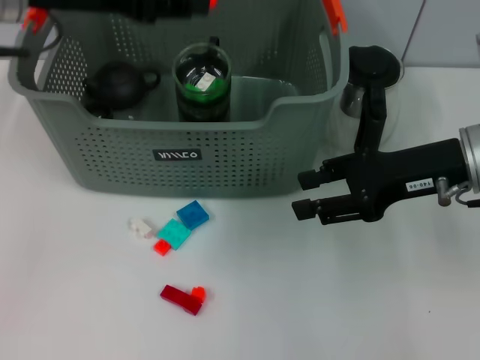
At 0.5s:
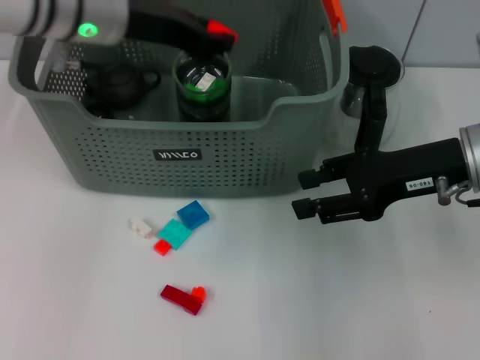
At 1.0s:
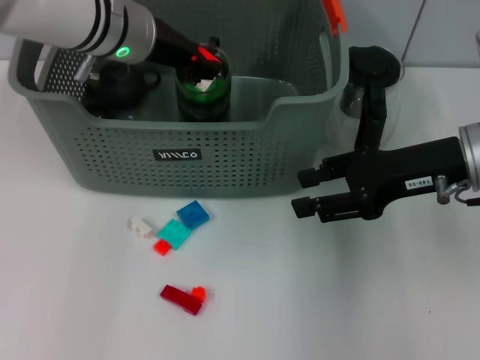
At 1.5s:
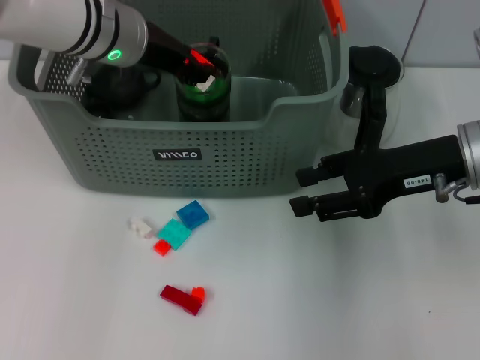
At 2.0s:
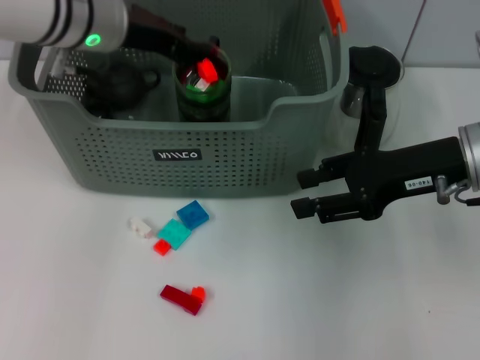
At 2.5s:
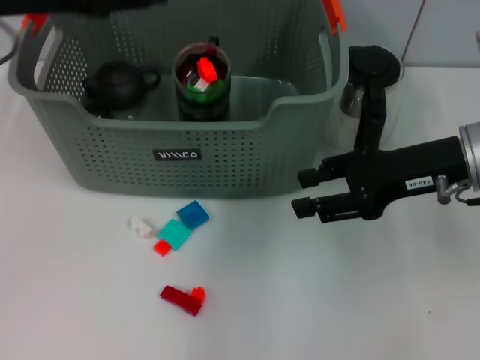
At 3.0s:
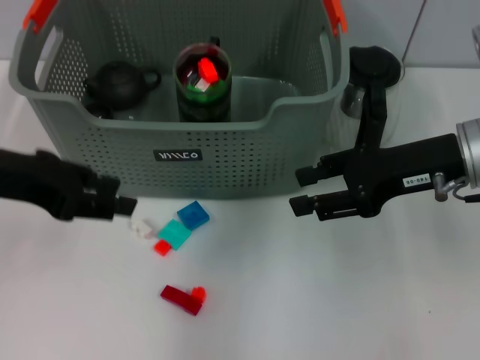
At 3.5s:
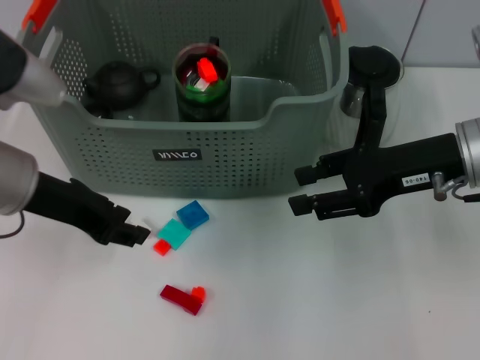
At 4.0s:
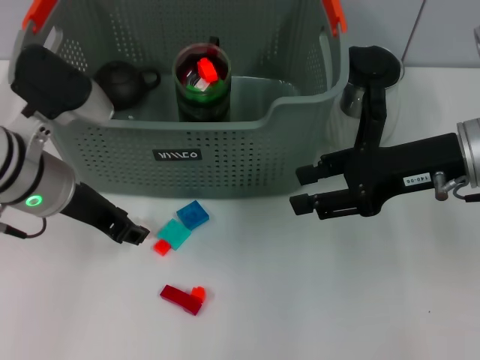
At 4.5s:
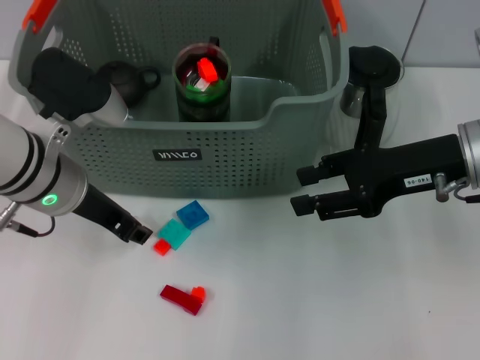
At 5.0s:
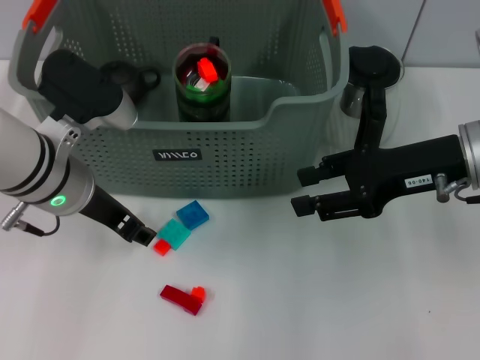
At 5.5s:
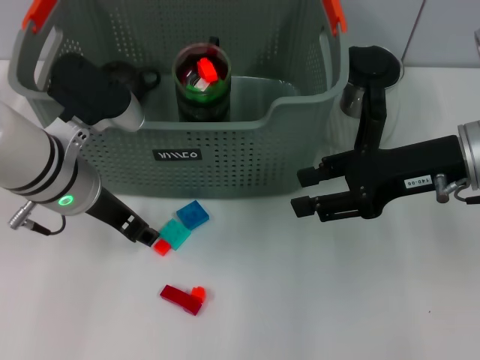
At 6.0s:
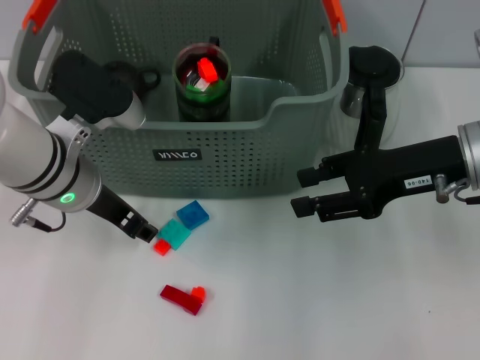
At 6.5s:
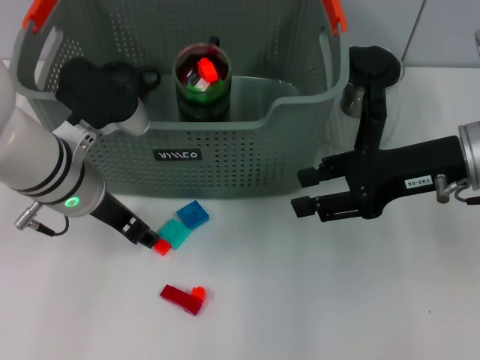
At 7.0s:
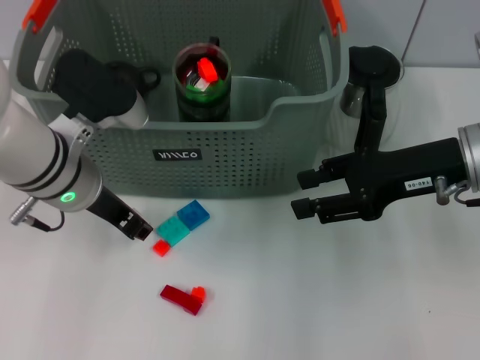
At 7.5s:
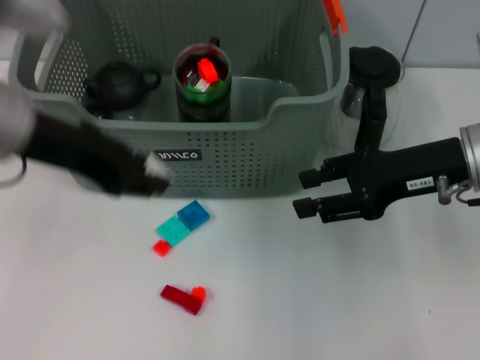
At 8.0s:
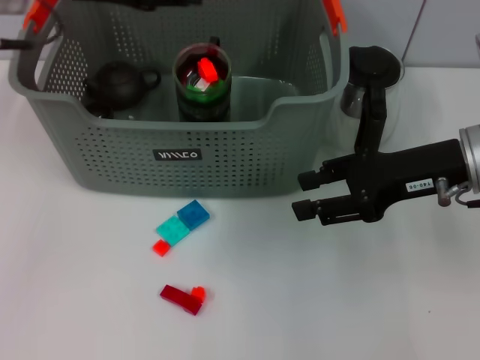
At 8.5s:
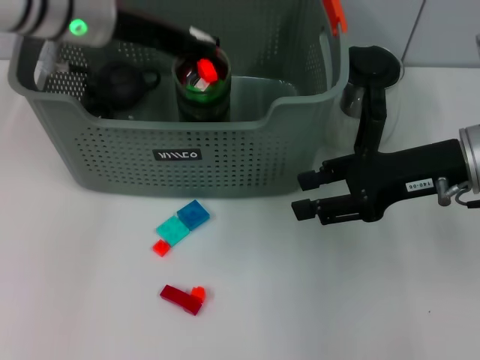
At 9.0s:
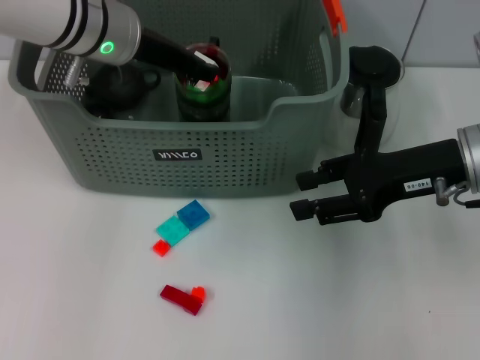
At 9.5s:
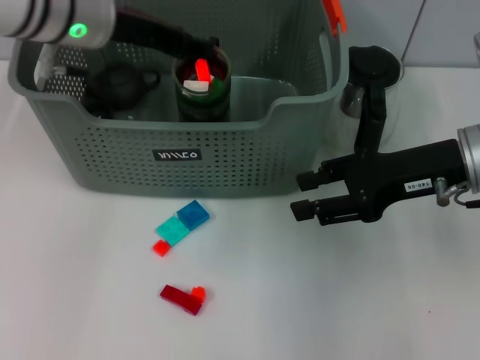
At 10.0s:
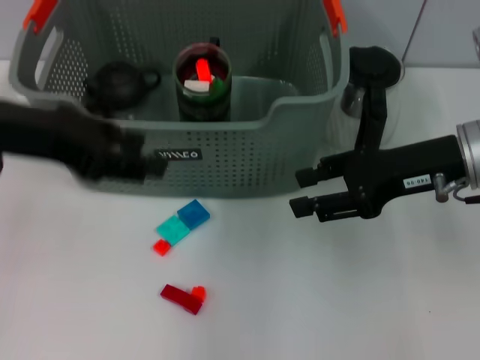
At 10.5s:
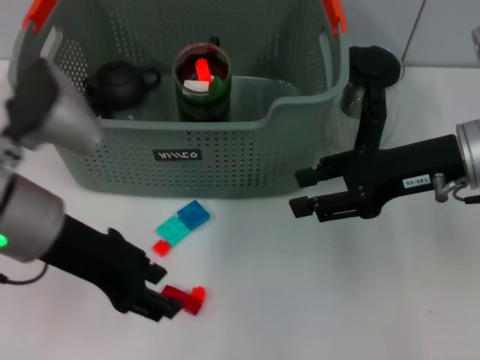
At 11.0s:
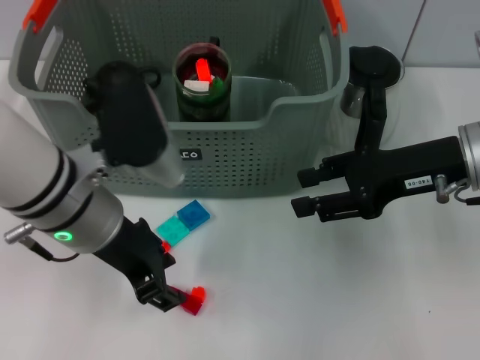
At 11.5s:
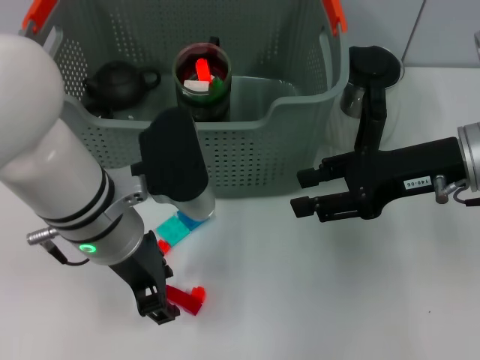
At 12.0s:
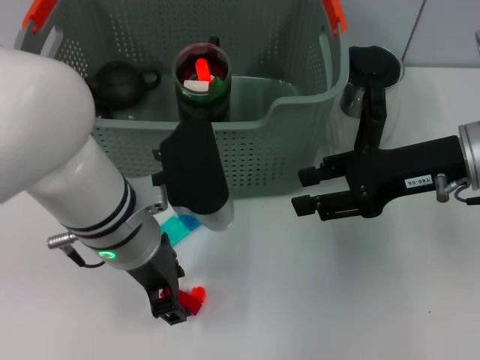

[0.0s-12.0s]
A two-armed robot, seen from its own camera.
Task of the whole recording: pick up the teacup on the table and place it into the storage bin, pick up the block on the table and place it into the storage bin.
Step, 0.0s to 2.0s: Place the orange block in the storage box with left gripper.
Step, 2.5s to 6.5s: Grasp the white block with left gripper.
Step, 7.0s to 9.5s: Place the white block in the storage box with left gripper.
0.0s to 2.0s: The left gripper goes some 10 cm downward, forward and to the right.
2.0s to 4.0s: The left gripper heads backward and downward, covering about 10 cm.
4.0s to 6.0s: The grippers move only a little.
6.0s to 8.0s: The left gripper moves upward, roughly 15 cm.
8.0s to 10.0s: The left gripper travels backward by some 10 cm.
10.0s to 12.0s: The left gripper is displaced to the right and downward by roughly 15 cm.

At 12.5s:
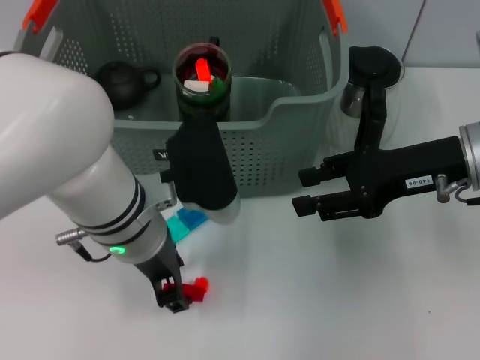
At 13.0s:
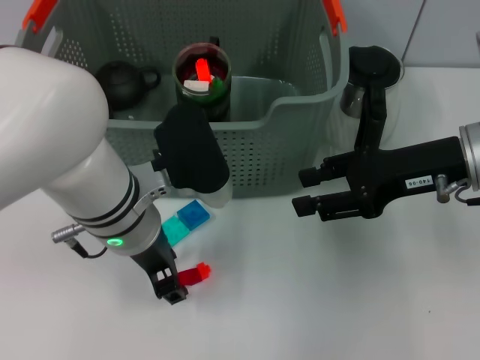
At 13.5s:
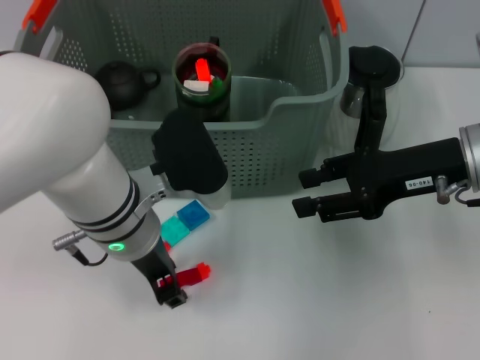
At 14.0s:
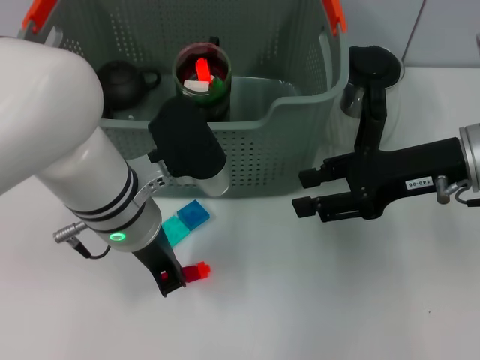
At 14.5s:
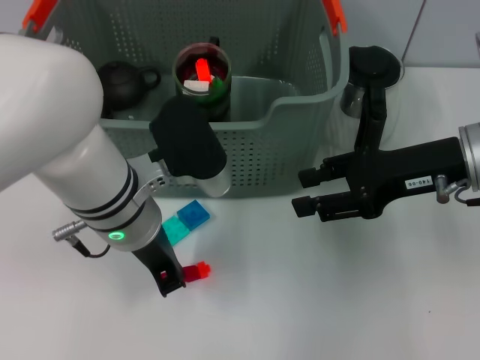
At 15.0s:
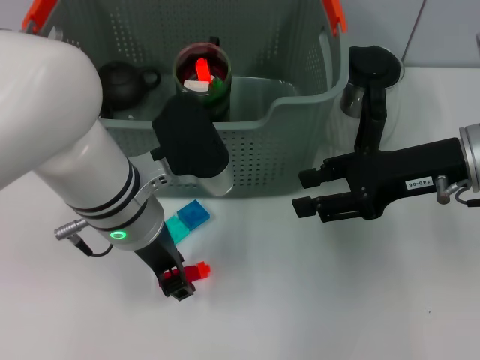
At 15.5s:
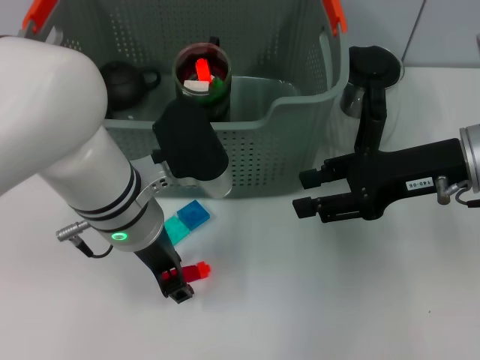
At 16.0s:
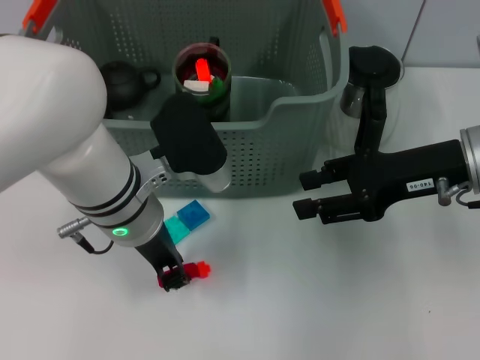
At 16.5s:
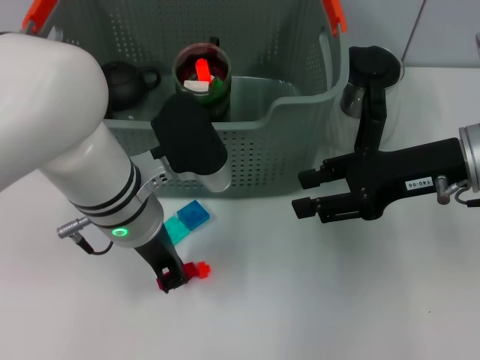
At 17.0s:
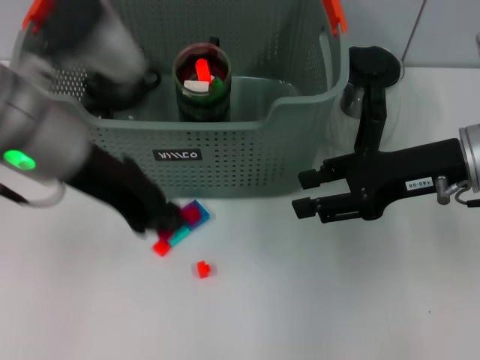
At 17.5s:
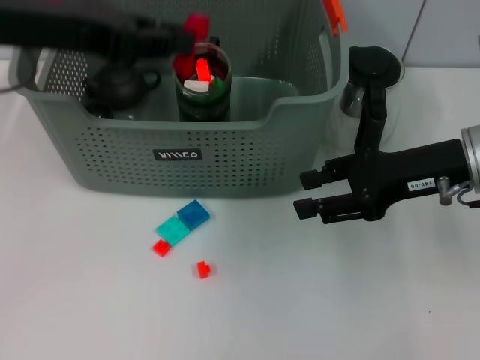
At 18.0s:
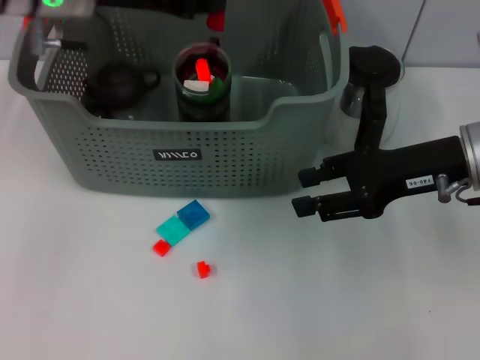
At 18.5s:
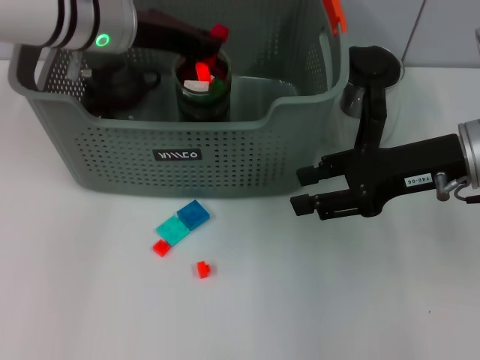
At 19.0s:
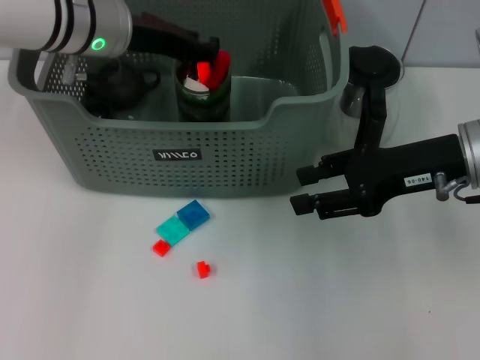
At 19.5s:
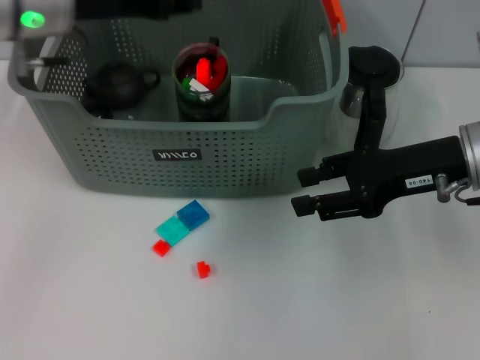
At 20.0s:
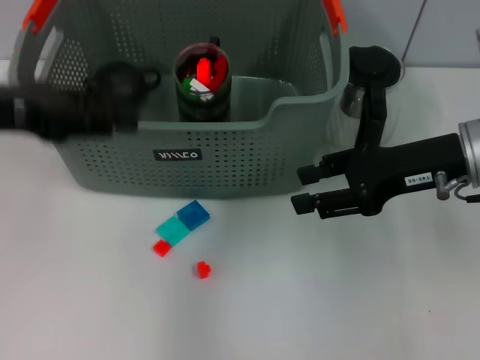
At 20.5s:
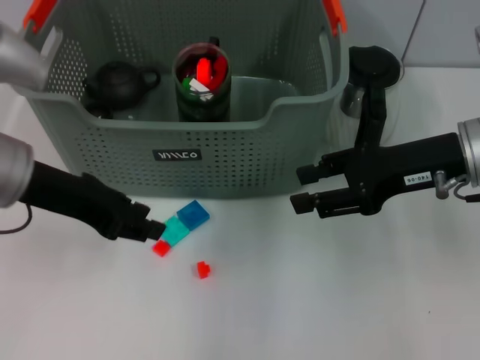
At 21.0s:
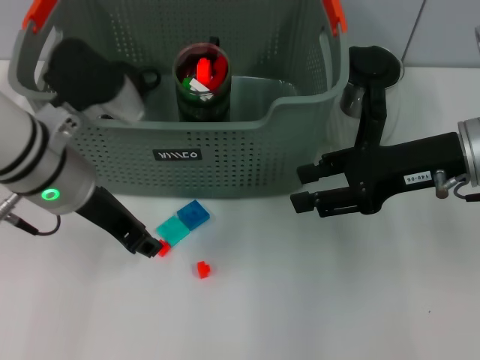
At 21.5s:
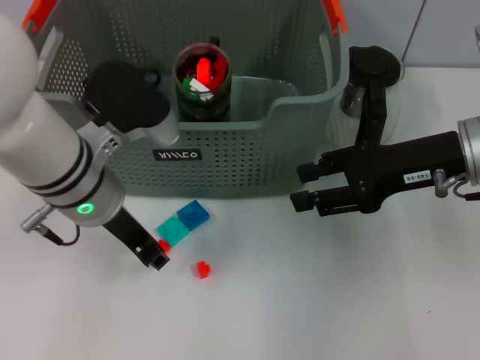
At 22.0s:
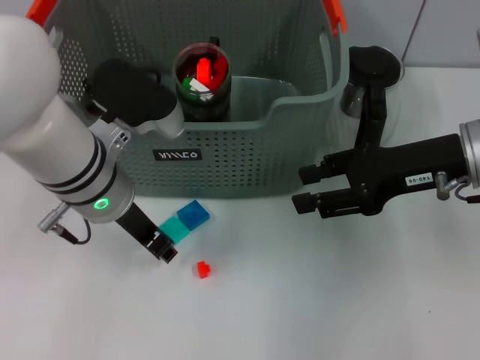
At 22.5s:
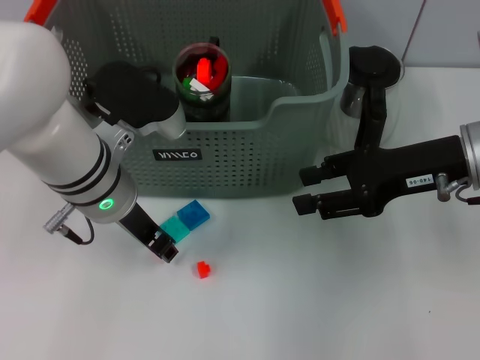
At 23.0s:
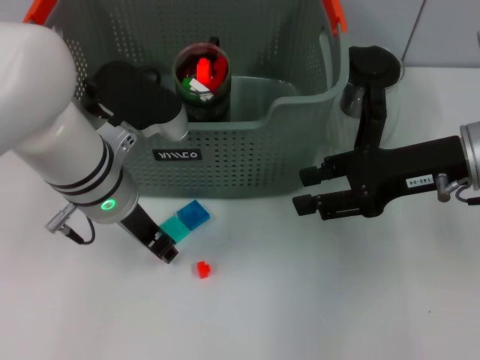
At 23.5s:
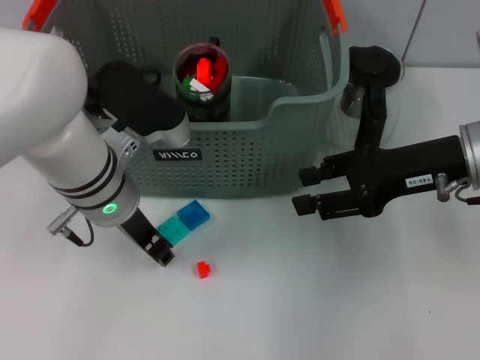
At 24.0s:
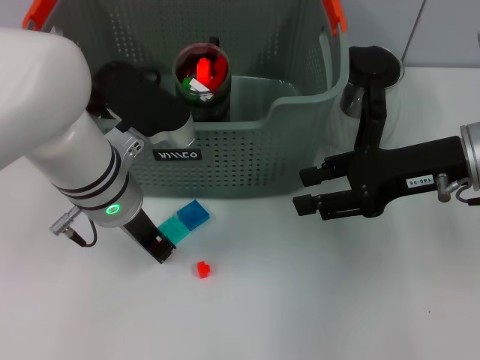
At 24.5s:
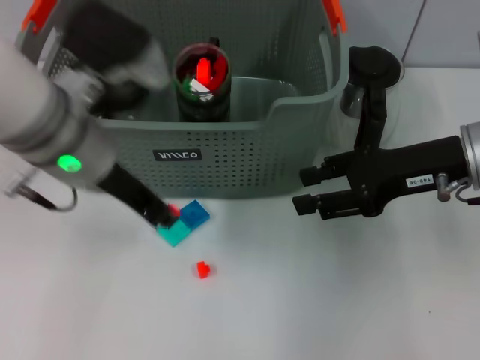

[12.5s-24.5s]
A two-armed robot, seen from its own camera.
Task of the whole recording: pick up the teacup on the table and place it into the storage bin, pick up the block on the table and place it into the storage bin.
Step, 12.5s to 16.0s: Grasp the red block with left gripper.
Step, 16.5s to 19.0s: Place the red block in the storage box with left gripper.
Step, 19.5s to 23.5s: Grasp the orange block with left gripper.
12.5s to 14.5s: The left gripper closes its fingers.
14.5s to 16.5s: The left gripper opens, then closes once more.
16.5s to 18.5s: The left gripper shifts about 15 cm forward and upward.
18.5s to 20.5s: The left gripper is displaced backward and to the left by approximately 15 cm.
20.5s to 22.5s: The left gripper is displaced to the right and downward by some 10 cm.
22.5s to 24.5s: The left gripper goes roughly 5 cm upward.

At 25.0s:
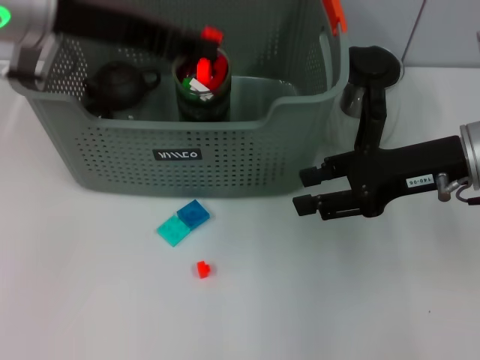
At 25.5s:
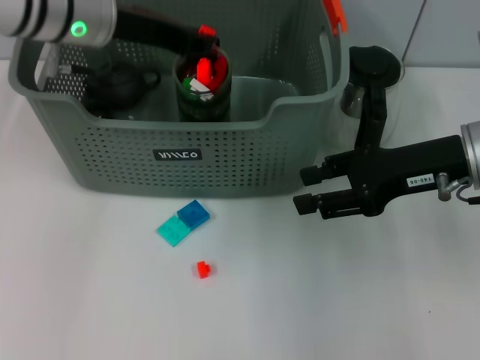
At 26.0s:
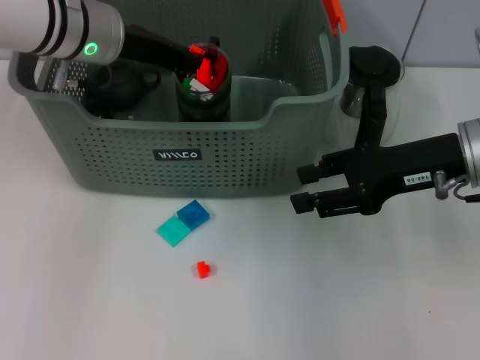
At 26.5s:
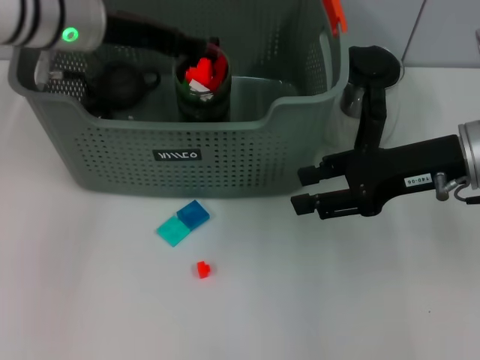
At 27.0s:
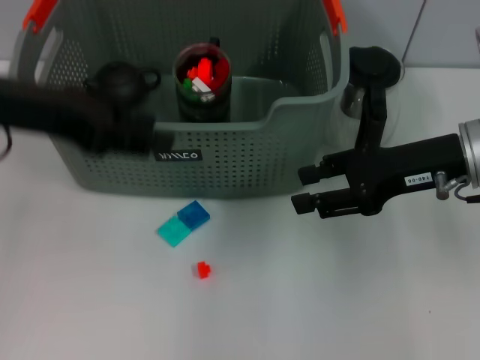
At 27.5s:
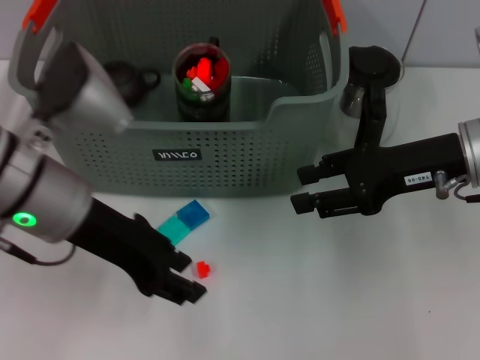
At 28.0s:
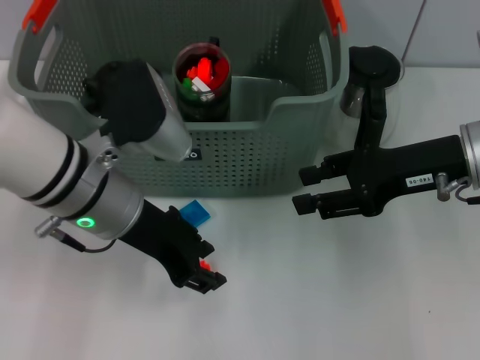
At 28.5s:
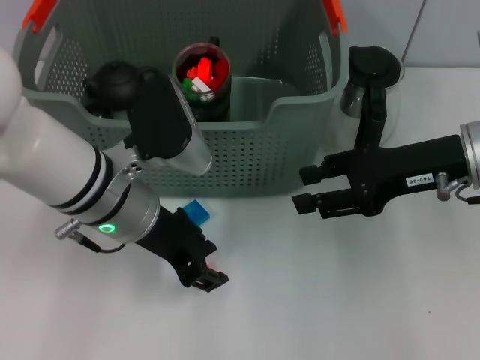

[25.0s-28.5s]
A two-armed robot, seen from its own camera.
Task of the whole recording: pick up the teacup on the table and place it into the storage bin, pick up the block on the table and place it into the storage bin.
Step, 25.0s to 26.5s: Place the orange block in the storage box with left gripper.
25.0s to 27.0s: The left gripper heads to the left, covering about 5 cm, and opens up.
27.0s to 28.5s: The left gripper shifts roughly 15 cm to the right and downward.
